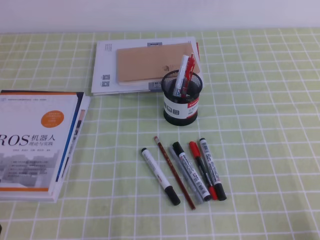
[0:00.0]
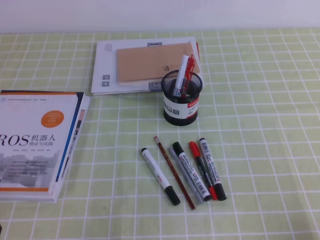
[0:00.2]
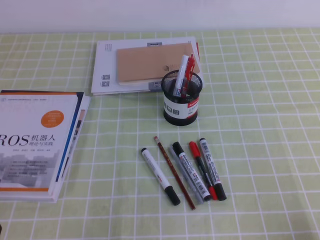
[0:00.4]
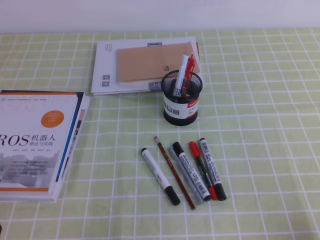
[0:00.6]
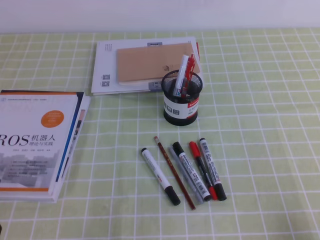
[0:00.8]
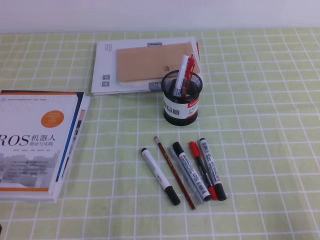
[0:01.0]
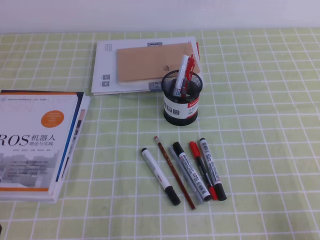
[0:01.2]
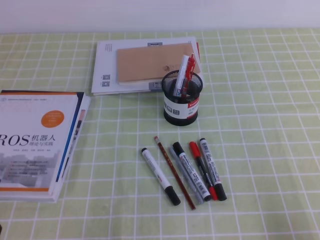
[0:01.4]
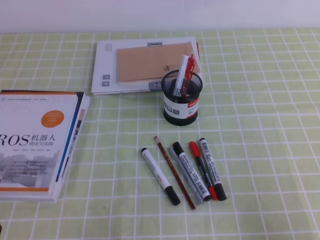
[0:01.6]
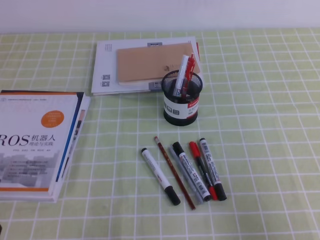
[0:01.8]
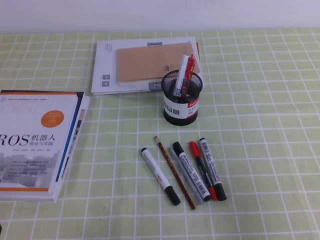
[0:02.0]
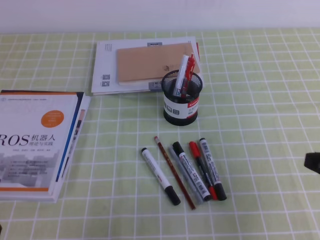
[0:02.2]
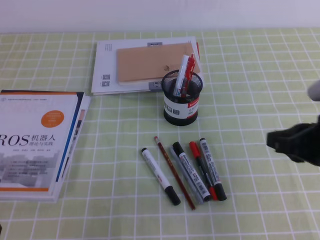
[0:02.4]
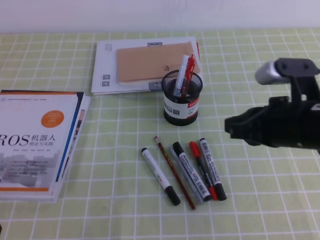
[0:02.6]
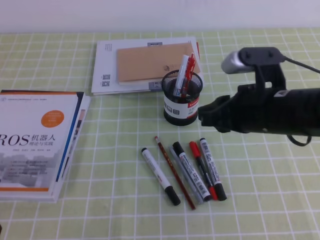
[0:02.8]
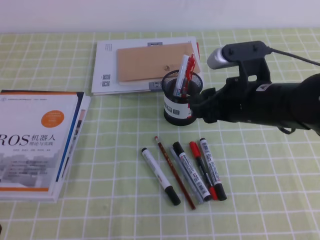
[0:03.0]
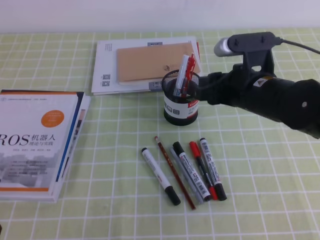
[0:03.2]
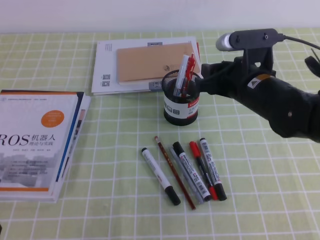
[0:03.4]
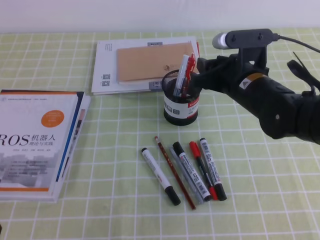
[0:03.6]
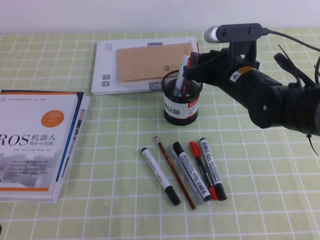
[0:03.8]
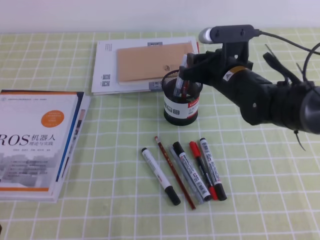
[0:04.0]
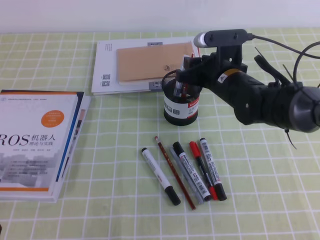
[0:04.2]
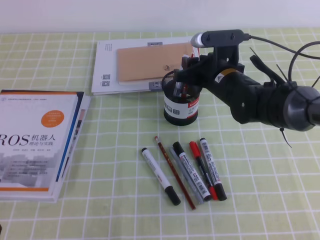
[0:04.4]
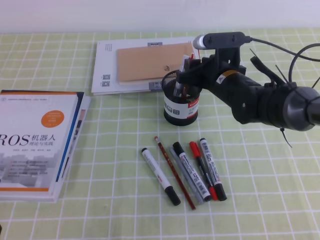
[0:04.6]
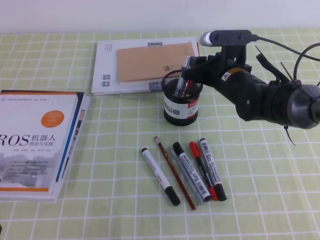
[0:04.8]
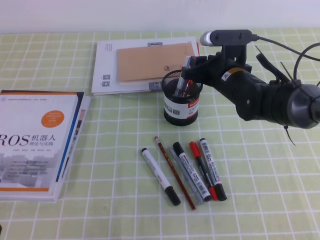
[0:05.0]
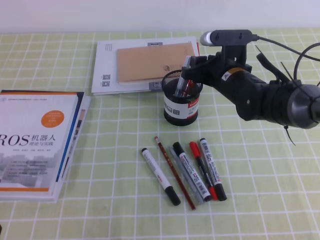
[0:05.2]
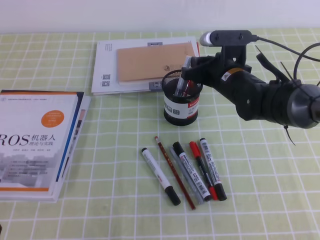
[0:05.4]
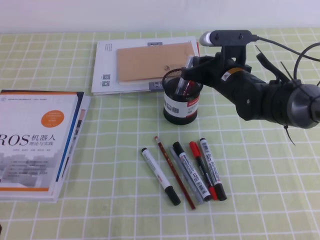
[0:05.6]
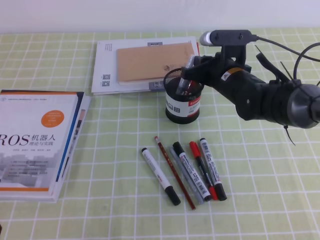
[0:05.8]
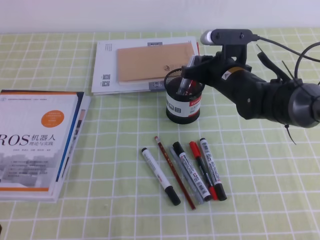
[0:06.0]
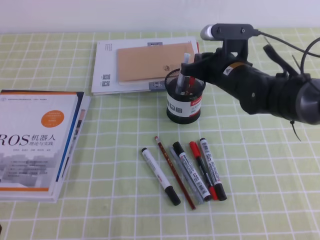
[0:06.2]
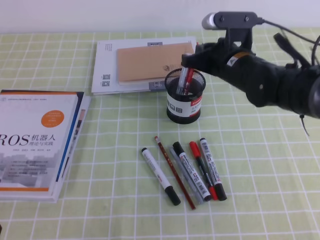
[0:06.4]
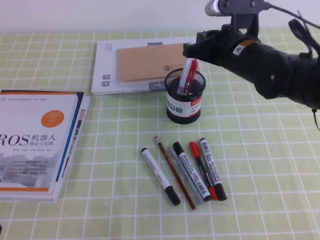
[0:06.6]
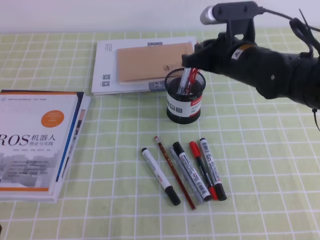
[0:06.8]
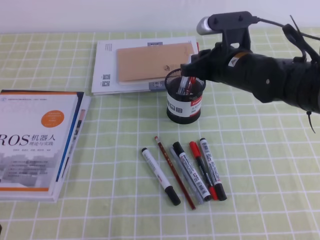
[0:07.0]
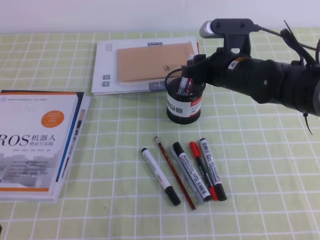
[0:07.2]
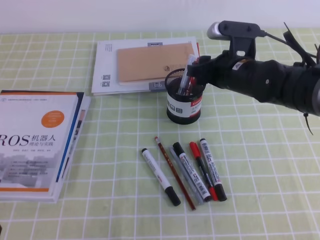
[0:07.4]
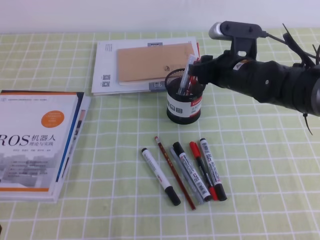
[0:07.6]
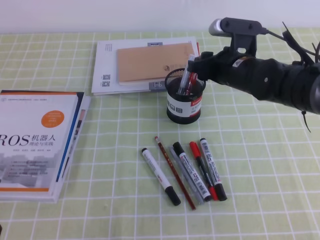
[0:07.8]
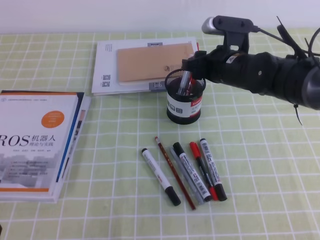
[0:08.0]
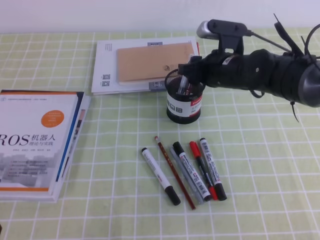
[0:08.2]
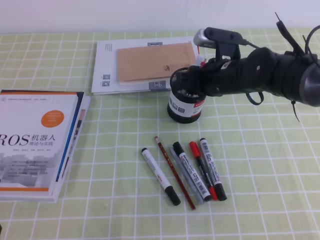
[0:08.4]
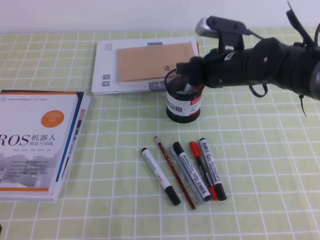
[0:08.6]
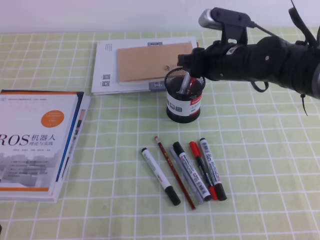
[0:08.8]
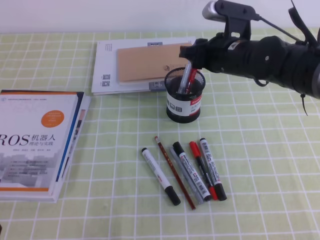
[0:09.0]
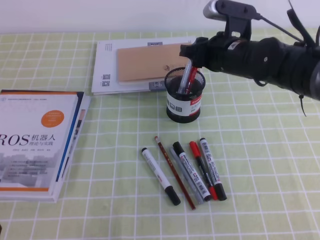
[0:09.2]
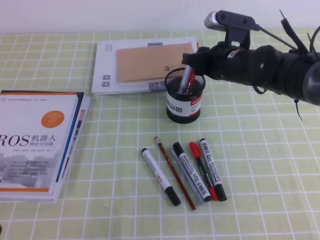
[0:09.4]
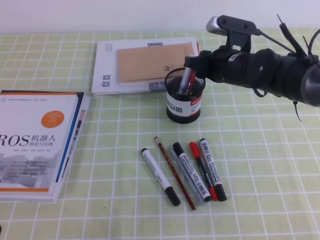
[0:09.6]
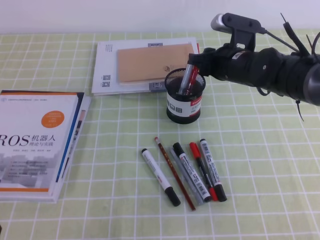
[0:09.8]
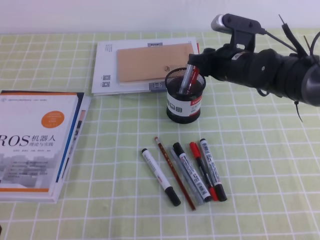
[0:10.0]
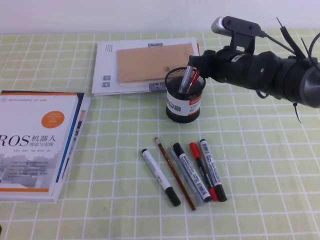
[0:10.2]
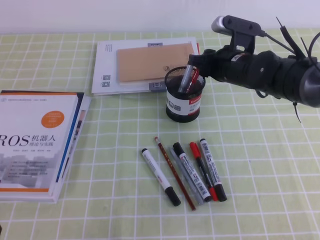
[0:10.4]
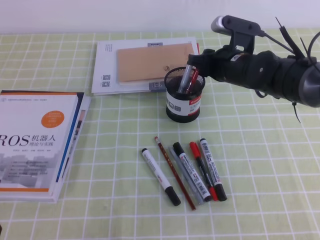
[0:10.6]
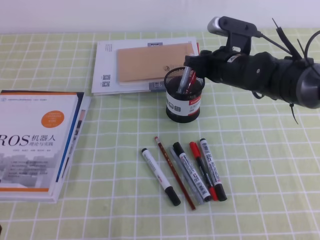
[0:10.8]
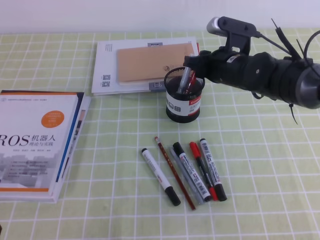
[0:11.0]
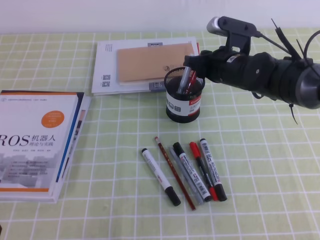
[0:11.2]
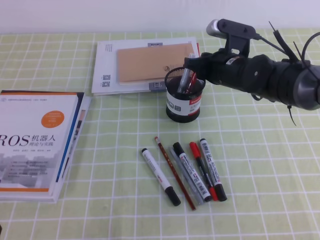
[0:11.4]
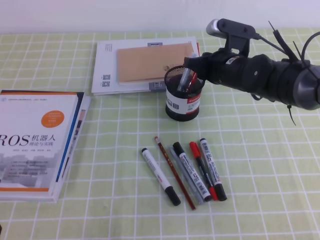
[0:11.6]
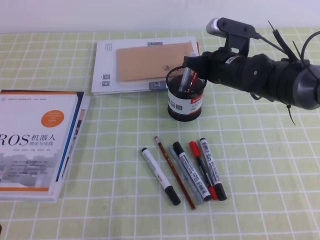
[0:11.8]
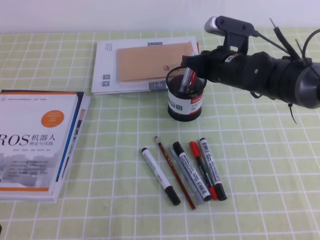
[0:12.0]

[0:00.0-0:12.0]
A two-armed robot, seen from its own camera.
0:01.6 to 0:03.0: The right gripper heads forward and to the left, covering about 30 cm, and opens up.
0:03.0 to 0:04.4: The right gripper is displaced forward and downward by some 15 cm.
0:04.4 to 0:06.0: The right gripper closes.
0:06.0 to 0:07.6: The right gripper opens.
0:07.6 to 0:10.4: There are only small adjustments of the grippers.
0:10.4 to 0:12.0: The right gripper closes up.

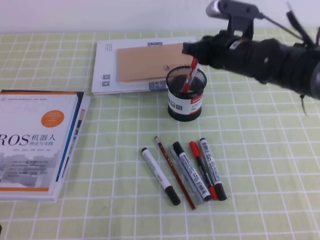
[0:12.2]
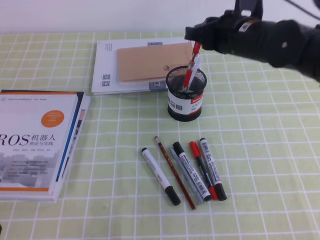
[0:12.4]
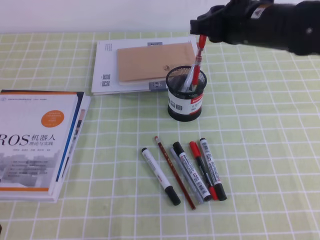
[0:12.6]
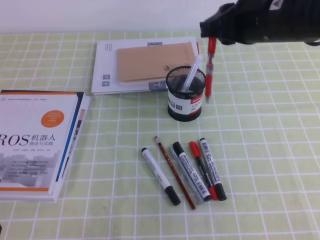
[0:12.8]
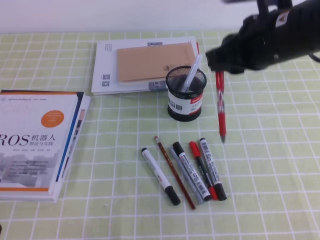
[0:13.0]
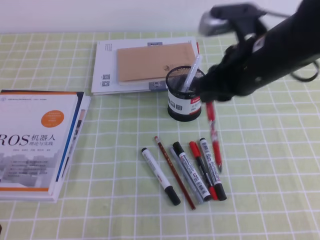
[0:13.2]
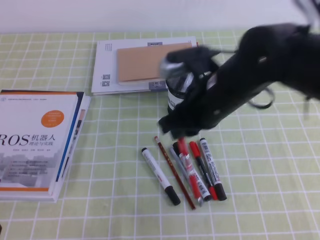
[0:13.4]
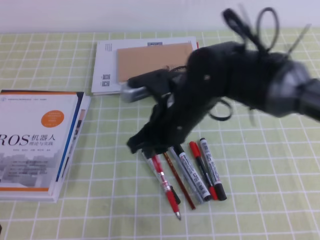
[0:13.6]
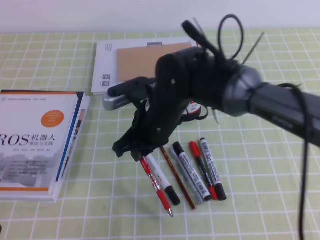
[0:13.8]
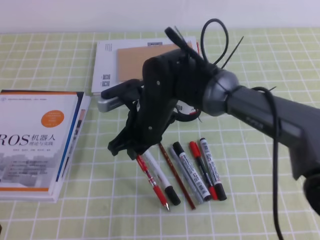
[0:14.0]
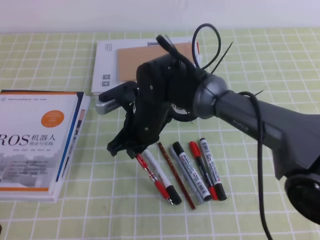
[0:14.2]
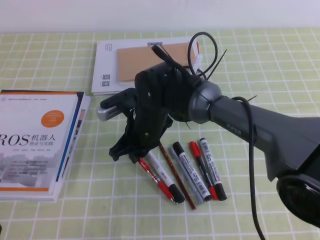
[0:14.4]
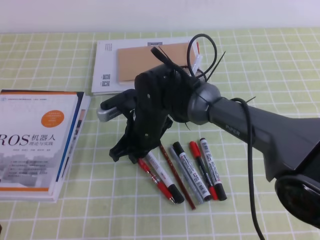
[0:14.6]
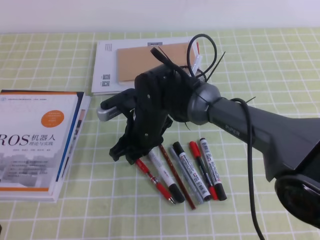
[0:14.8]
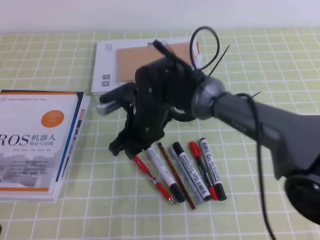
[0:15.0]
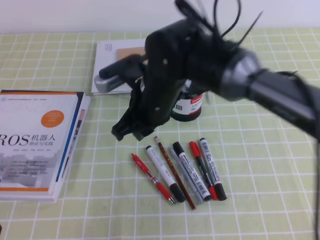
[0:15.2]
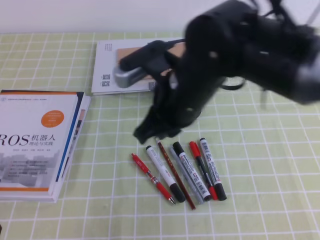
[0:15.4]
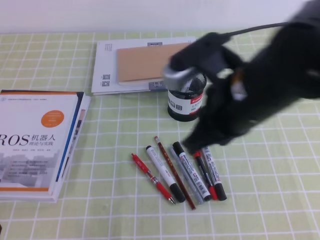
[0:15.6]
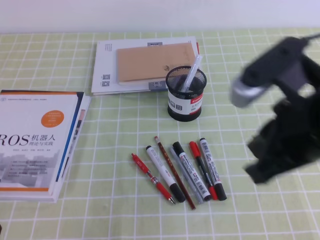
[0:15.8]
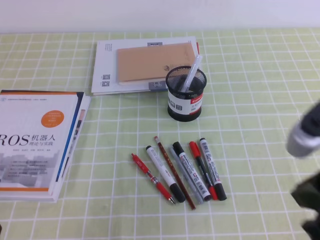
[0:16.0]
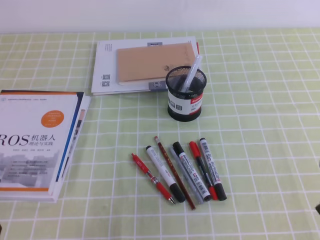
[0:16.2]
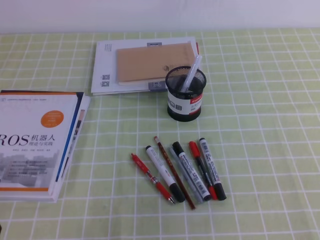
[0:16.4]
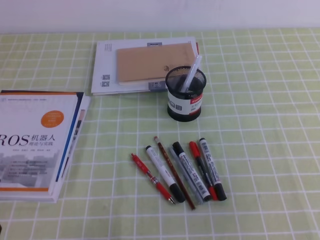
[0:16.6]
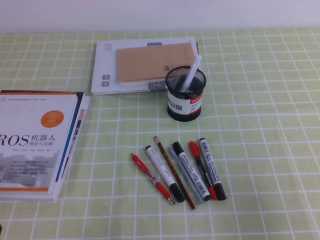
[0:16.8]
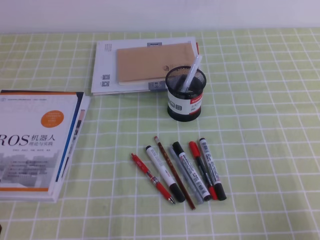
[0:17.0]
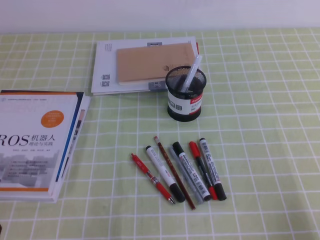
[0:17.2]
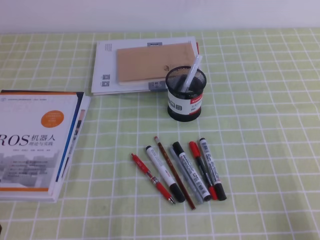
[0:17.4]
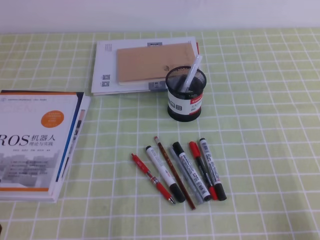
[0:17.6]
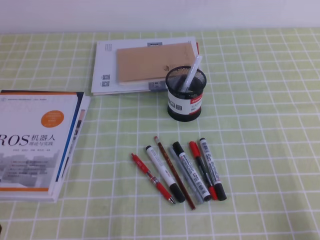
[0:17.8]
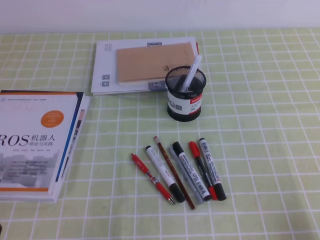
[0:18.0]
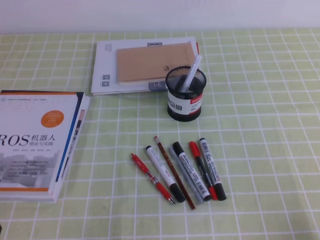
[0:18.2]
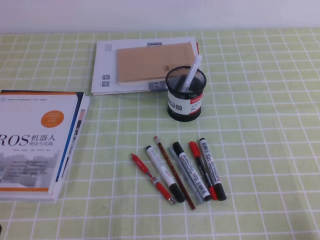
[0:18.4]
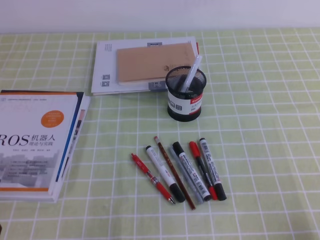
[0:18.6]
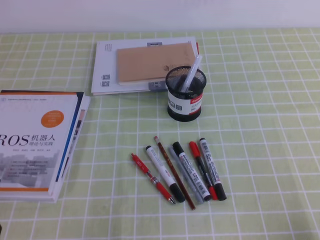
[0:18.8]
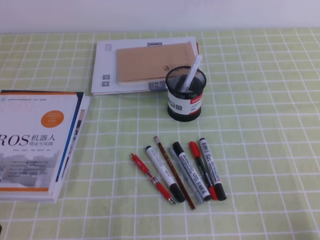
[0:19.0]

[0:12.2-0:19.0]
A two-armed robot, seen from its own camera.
Step, 0:12.2 to 0:19.0: Pick up the pen from the pen holder.
0:12.2 to 0:13.6: The right gripper travels backward and to the left by approximately 15 cm.
0:13.6 to 0:15.0: The right gripper shifts approximately 10 cm to the left and downward, and opens up.
0:15.0 to 0:16.2: The right gripper moves to the right, backward and upward, some 35 cm, and closes up.
0:16.2 to 0:17.6: The right gripper moves downward and to the right, some 20 cm.
